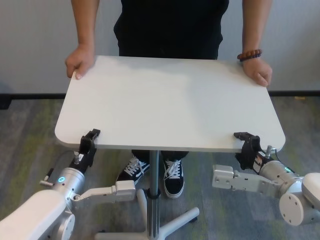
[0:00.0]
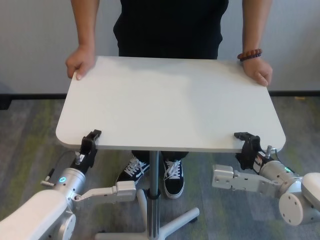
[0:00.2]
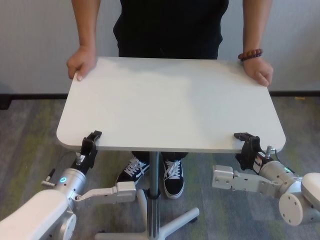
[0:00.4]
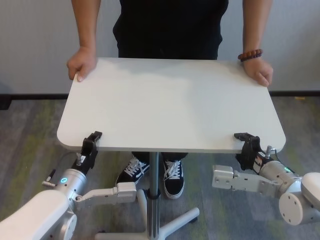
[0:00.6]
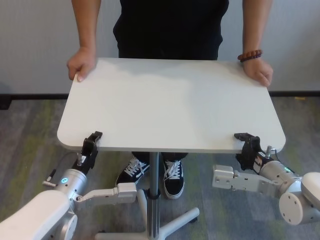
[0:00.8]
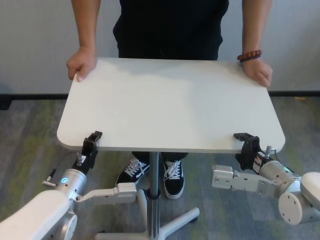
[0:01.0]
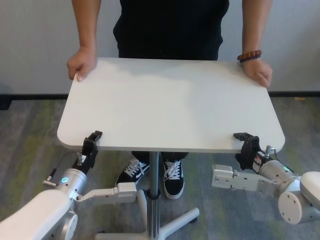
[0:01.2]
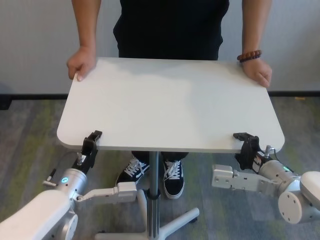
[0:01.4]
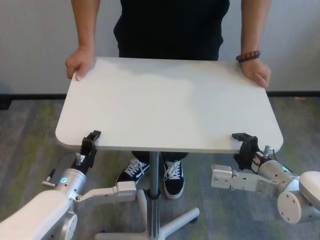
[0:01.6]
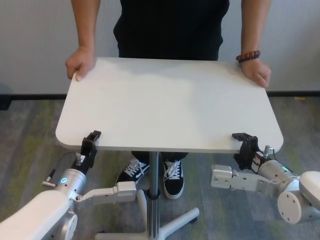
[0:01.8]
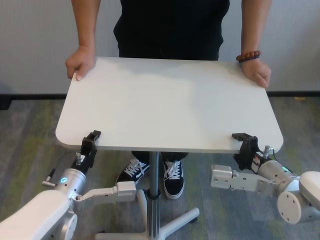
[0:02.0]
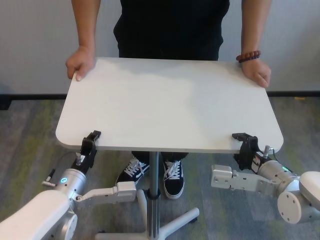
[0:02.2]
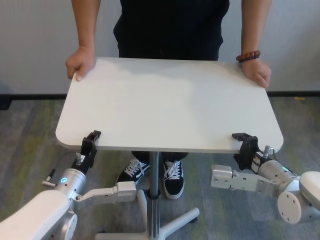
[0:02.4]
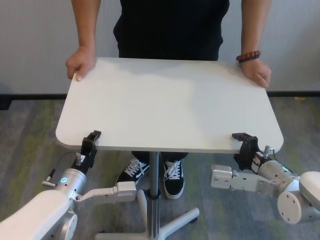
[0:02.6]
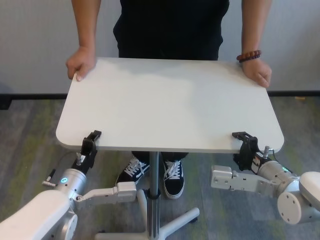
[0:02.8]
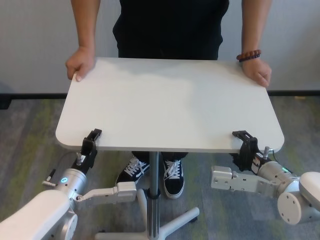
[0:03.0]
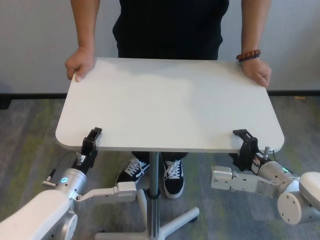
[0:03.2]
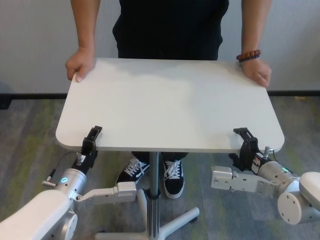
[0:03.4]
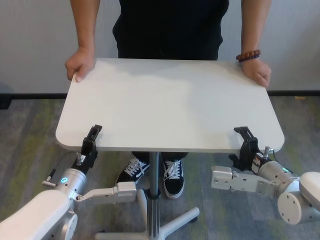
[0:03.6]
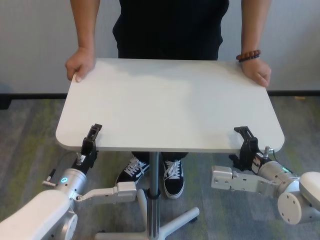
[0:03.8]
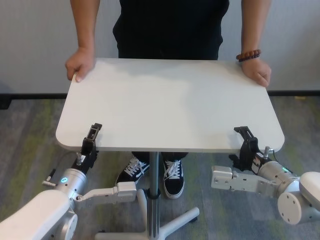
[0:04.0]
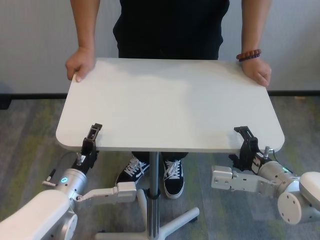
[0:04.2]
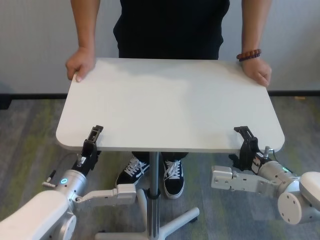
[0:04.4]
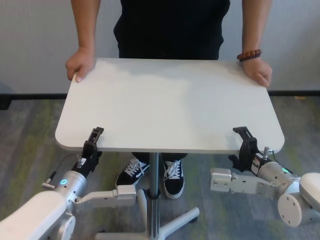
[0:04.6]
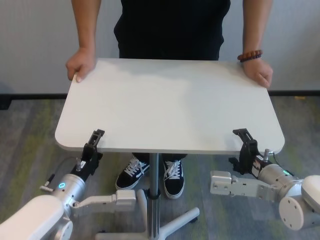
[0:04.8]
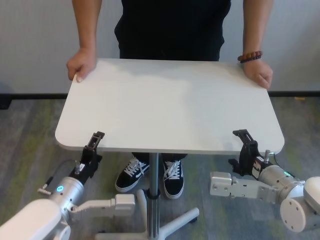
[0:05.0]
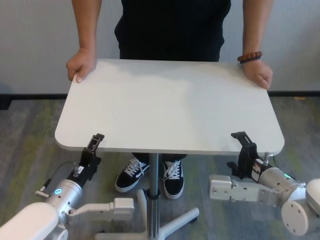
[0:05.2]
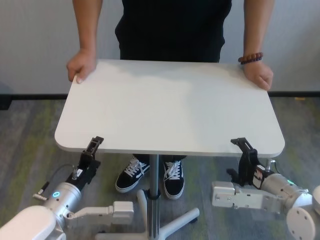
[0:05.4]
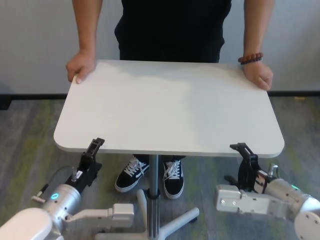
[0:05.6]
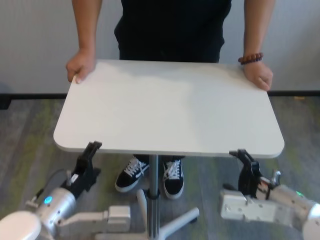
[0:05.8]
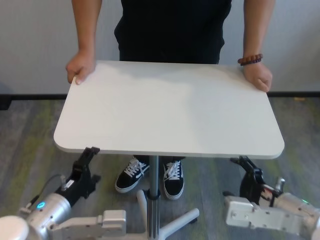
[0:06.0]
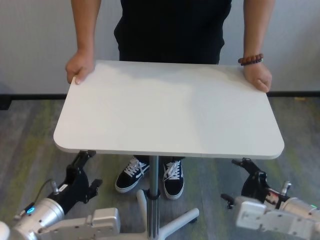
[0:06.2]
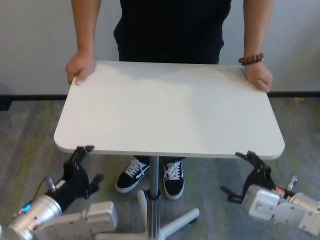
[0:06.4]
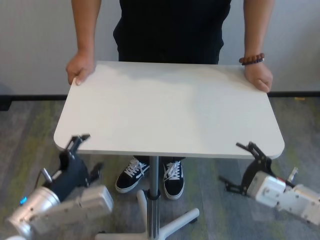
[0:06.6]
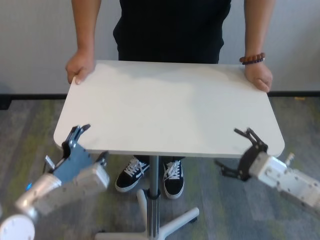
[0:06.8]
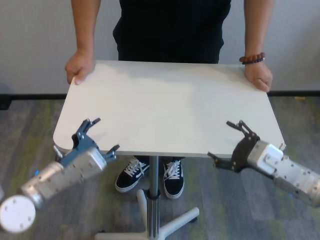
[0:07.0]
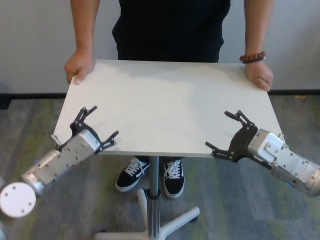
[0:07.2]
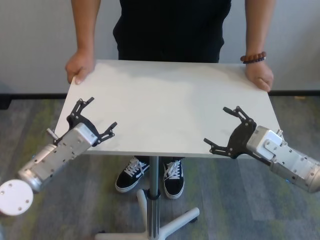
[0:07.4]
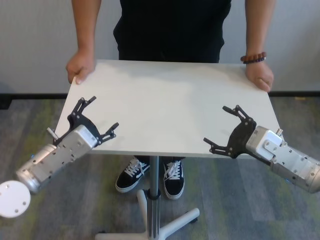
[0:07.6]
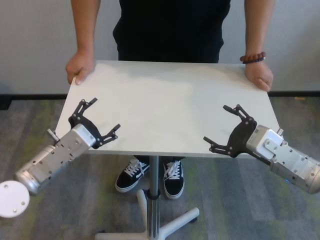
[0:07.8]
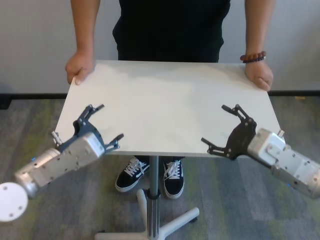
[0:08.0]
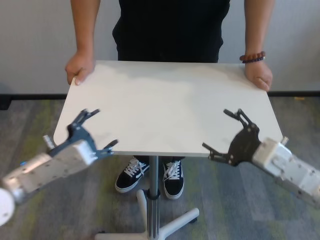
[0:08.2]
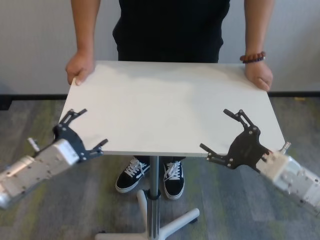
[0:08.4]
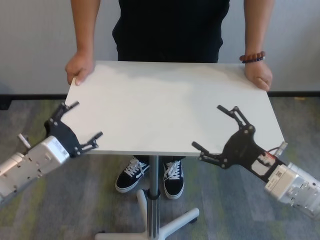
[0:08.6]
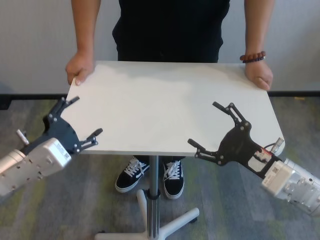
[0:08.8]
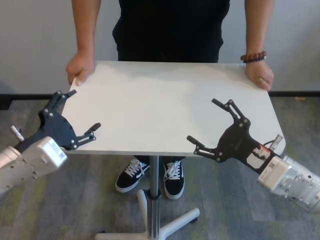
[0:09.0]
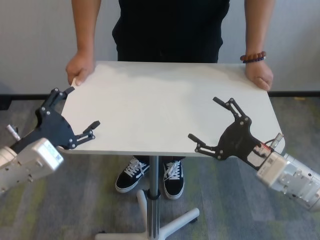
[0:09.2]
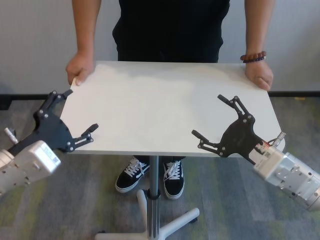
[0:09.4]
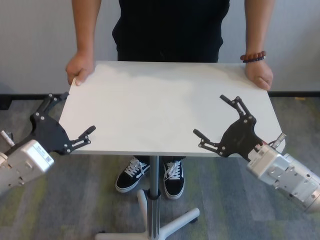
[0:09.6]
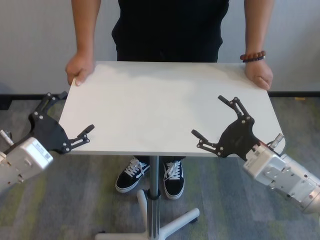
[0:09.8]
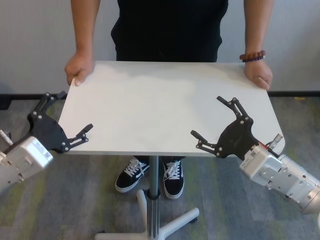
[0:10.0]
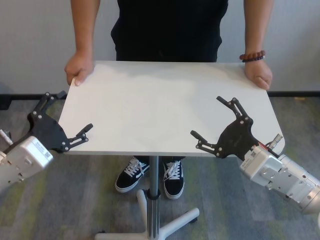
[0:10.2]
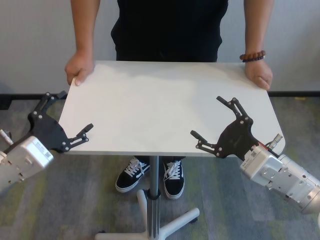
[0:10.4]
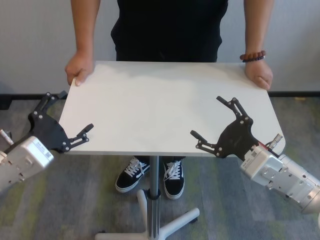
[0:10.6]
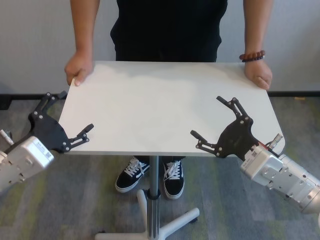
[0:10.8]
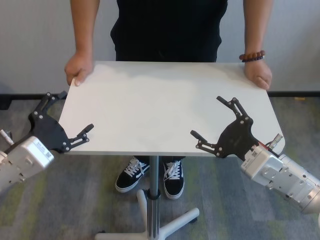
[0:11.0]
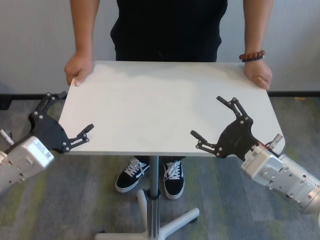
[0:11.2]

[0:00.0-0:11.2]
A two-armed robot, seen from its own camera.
Task of the whole recording: human machine collaborative table moving.
Step, 0:00.0 to 0:04.0: Move the table forward with both grippers.
